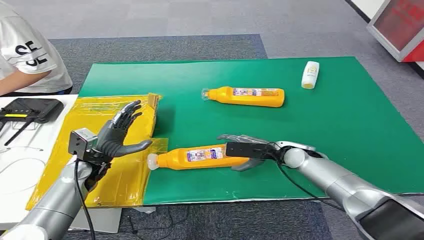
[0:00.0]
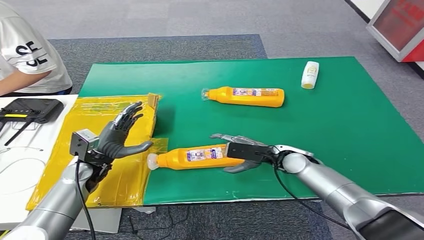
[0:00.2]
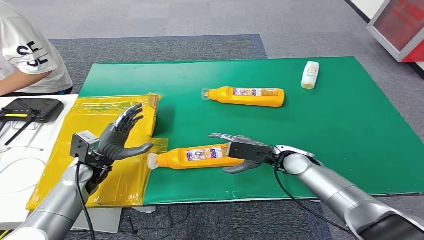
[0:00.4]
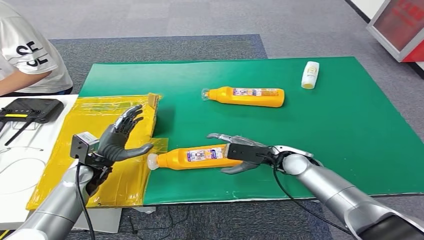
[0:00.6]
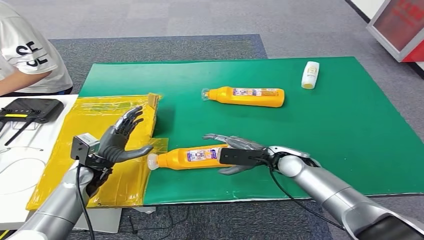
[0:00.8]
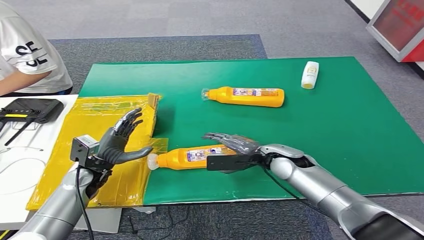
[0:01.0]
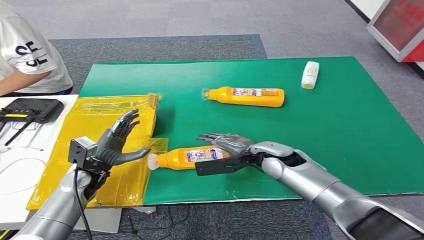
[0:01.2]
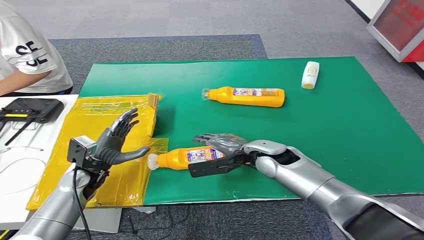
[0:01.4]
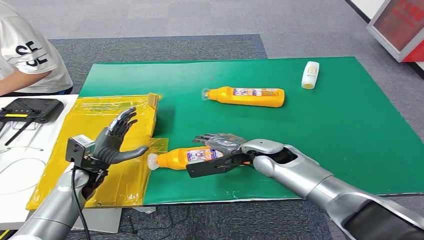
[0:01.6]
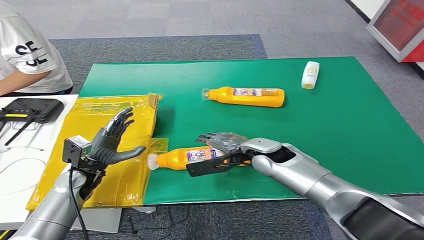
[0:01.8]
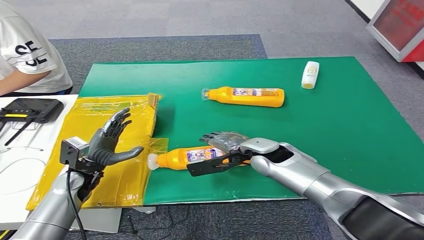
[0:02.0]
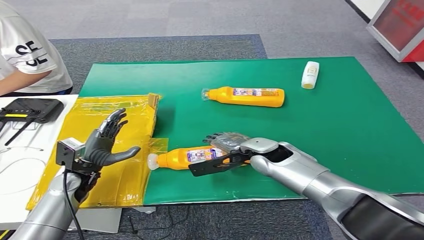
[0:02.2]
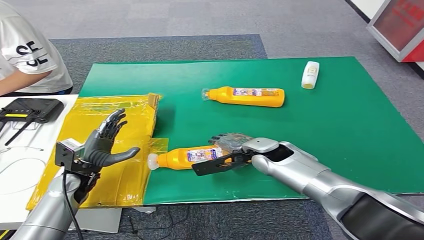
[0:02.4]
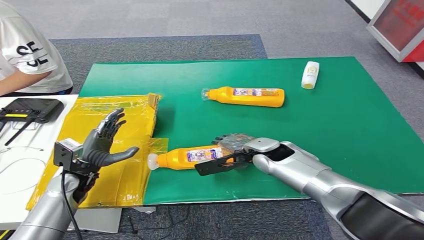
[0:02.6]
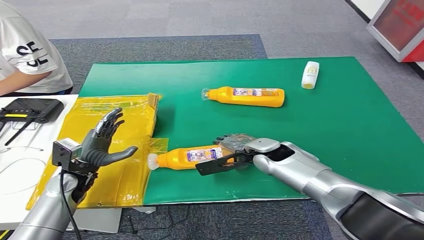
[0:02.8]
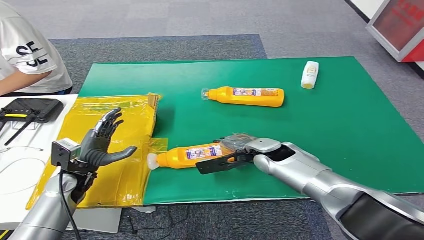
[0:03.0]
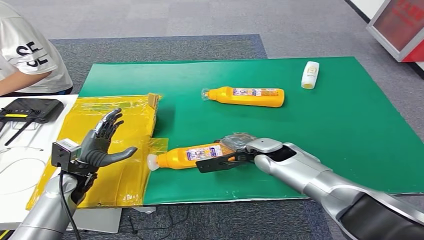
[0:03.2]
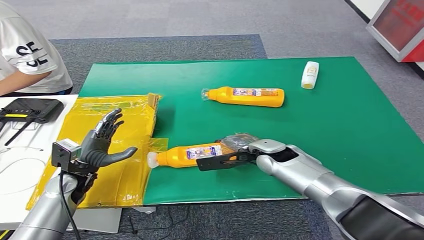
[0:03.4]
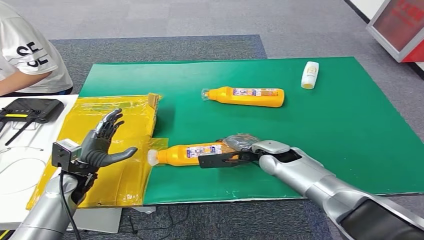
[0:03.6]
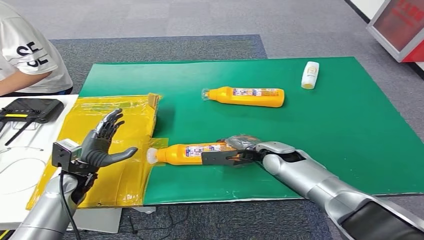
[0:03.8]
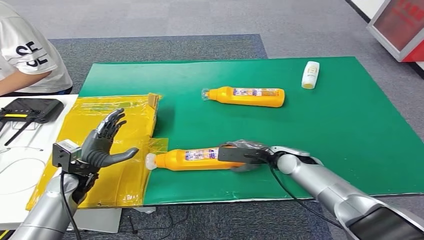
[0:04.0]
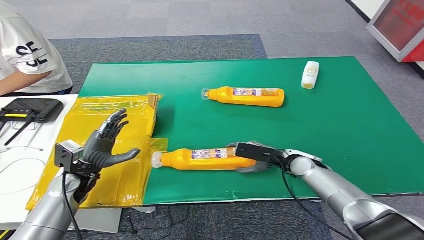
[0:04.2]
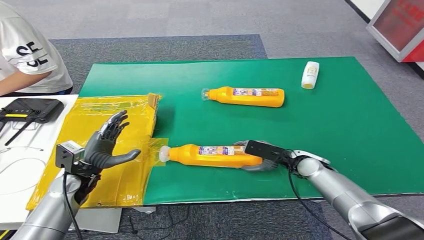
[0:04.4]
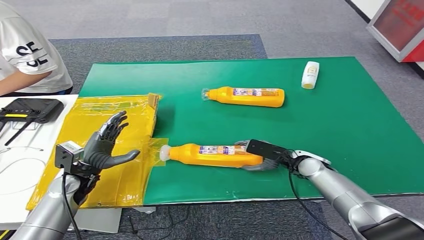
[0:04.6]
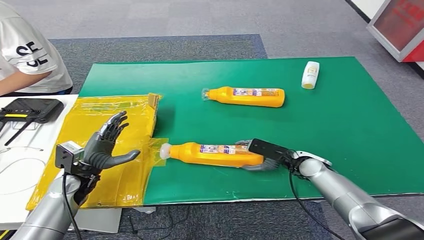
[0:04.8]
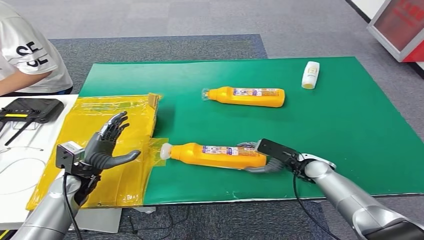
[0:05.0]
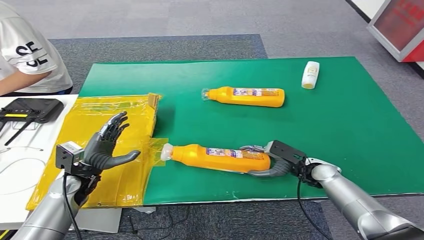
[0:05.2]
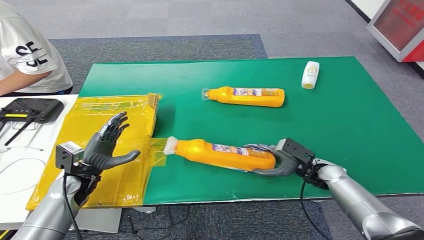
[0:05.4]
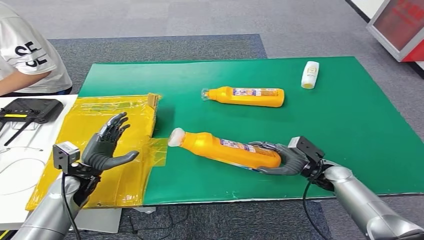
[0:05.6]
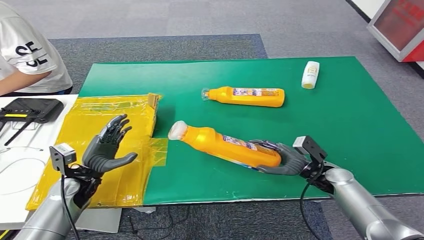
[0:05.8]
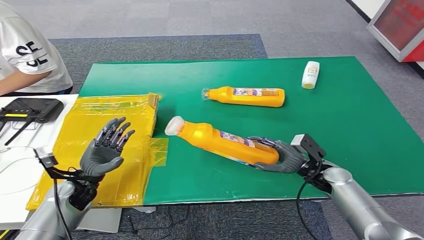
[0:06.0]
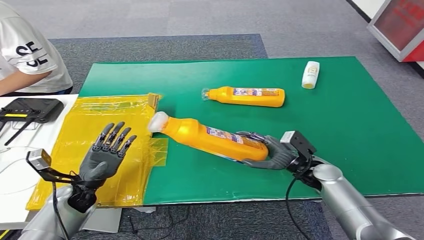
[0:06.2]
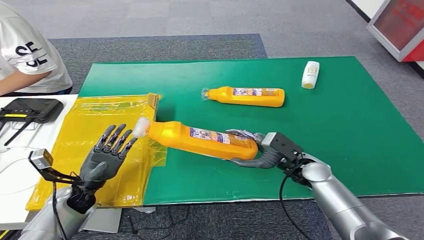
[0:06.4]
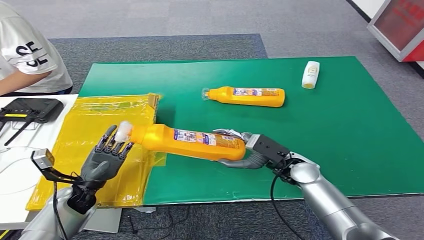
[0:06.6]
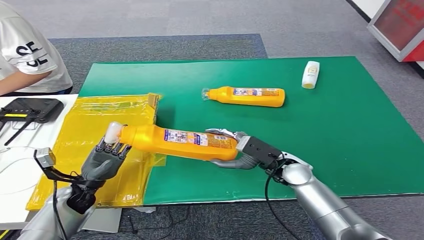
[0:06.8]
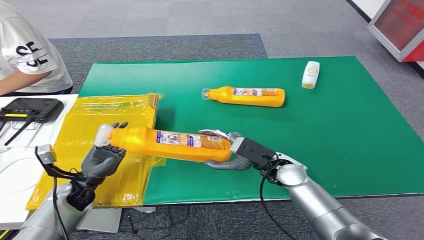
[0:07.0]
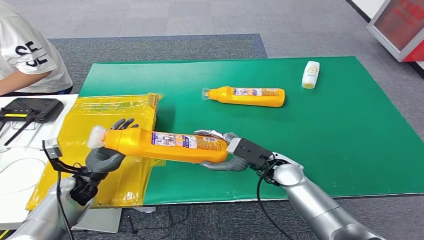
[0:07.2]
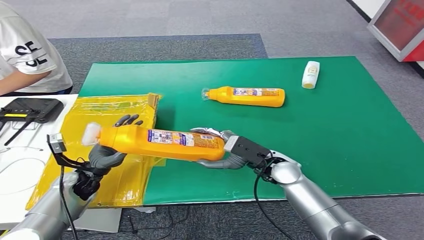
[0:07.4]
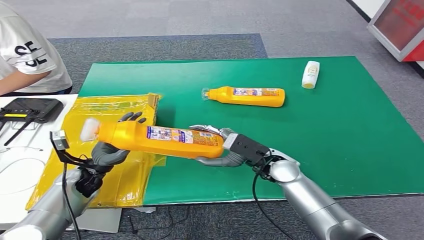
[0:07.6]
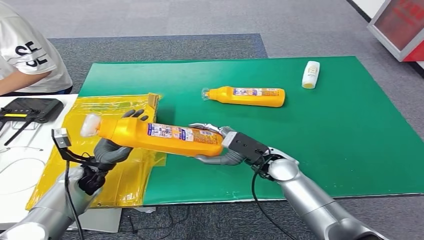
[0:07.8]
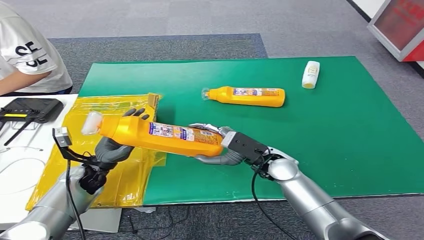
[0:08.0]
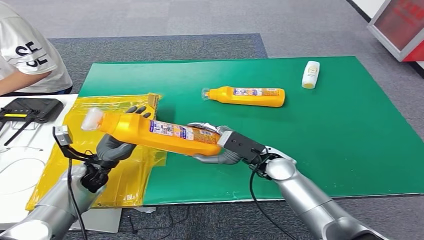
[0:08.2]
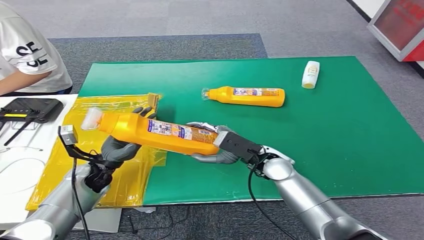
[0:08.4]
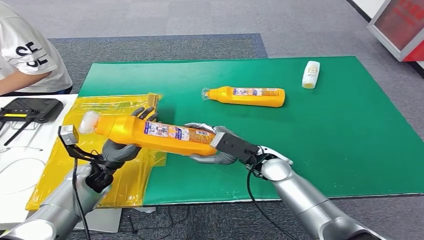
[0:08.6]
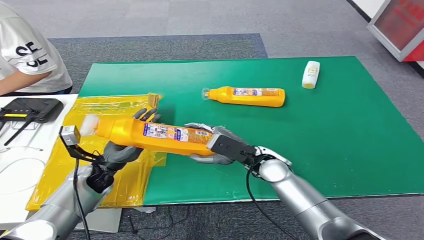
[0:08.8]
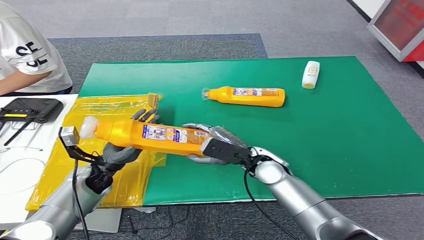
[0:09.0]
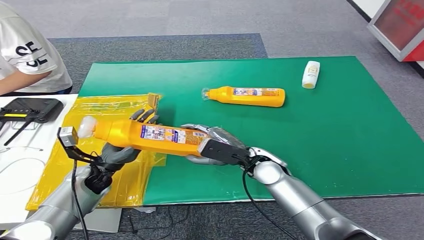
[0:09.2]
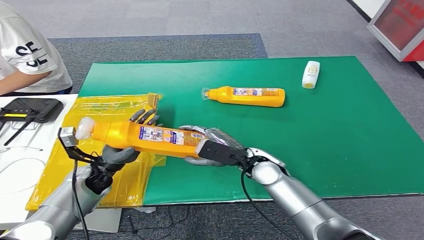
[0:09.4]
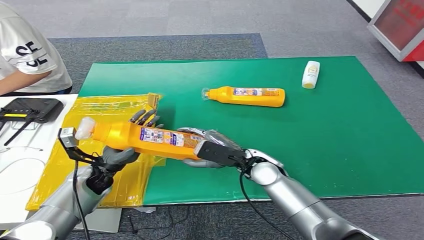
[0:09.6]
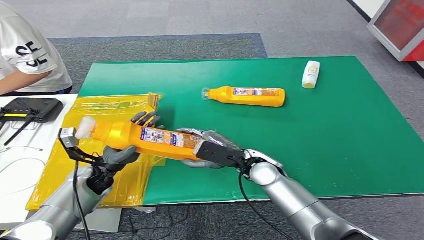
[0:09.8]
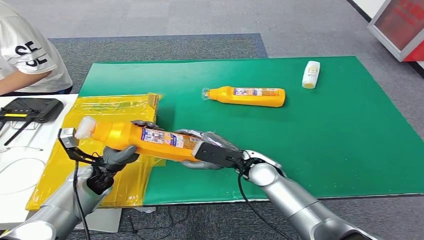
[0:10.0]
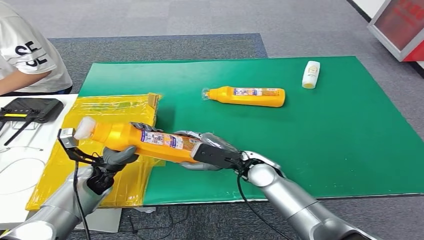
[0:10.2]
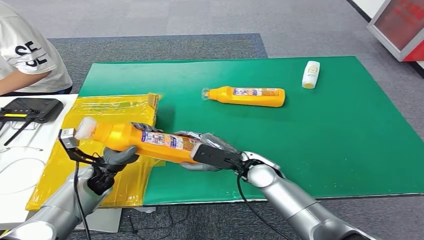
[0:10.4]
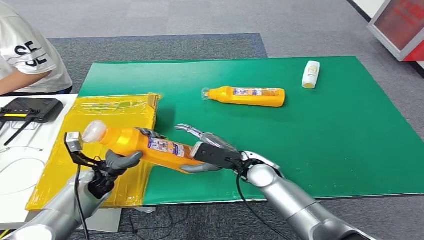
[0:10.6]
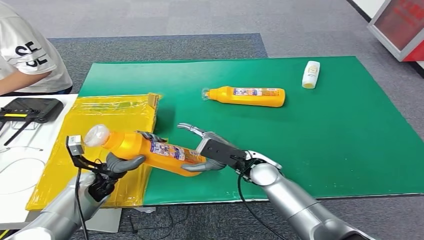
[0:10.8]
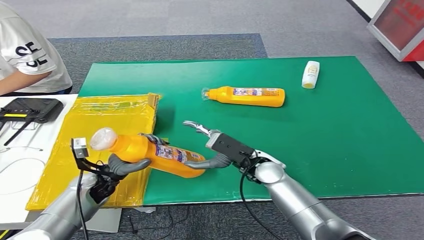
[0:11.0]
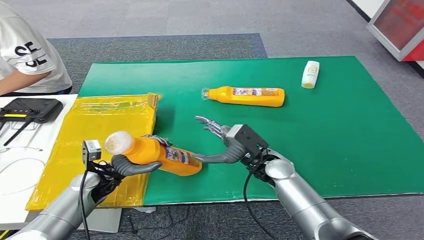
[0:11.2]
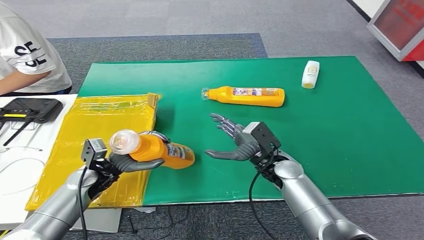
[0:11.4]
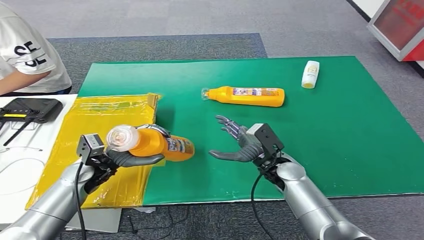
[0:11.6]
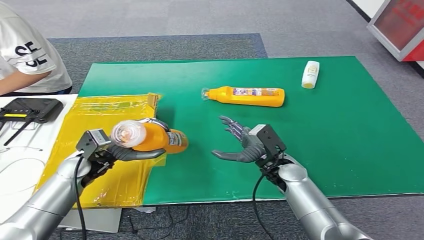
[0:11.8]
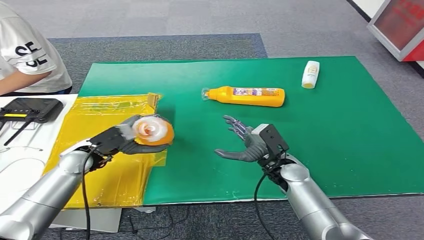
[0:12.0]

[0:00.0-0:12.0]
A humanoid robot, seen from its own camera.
Step, 0:00.0 to 0:05.4: Pick up the bottle from the table.
0:01.6 to 0:03.0: The hands make only small movements.
0:03.0 to 0:04.4: The right hand heads to the right and downward, covering about 15 cm.
0:04.4 to 0:06.0: The right hand shifts by some 5 cm.
0:06.0 to 0:07.6: The right hand moves to the left and upward, roughly 15 cm.
0:07.6 to 0:10.4: The hands stay close to where they were, moving slightly.
0:10.4 to 0:12.0: The left hand moves upward, roughly 10 cm. The right hand moves to the right, some 5 cm.

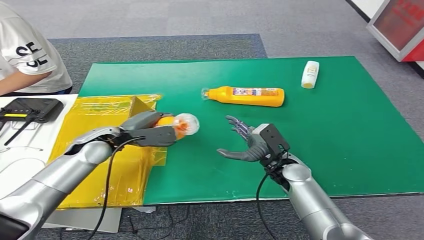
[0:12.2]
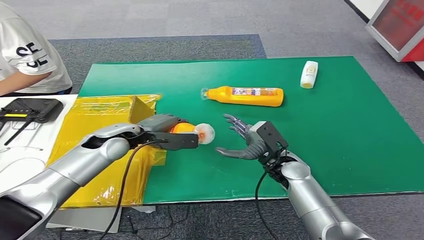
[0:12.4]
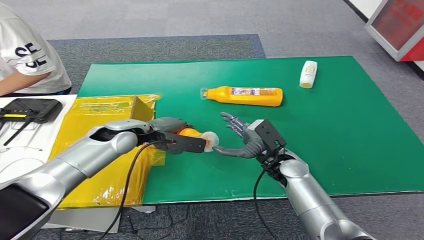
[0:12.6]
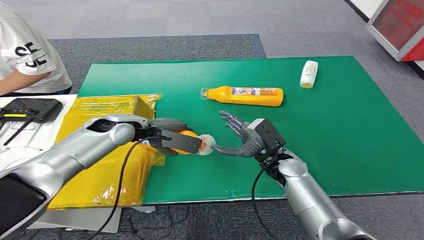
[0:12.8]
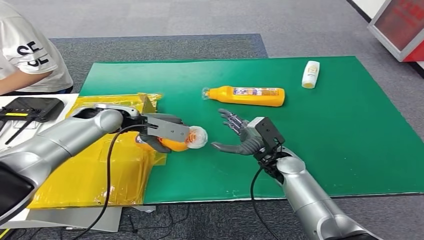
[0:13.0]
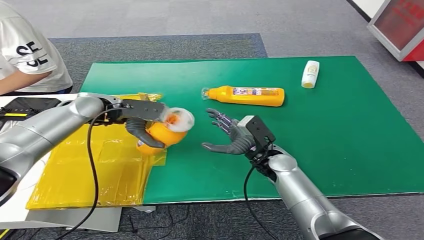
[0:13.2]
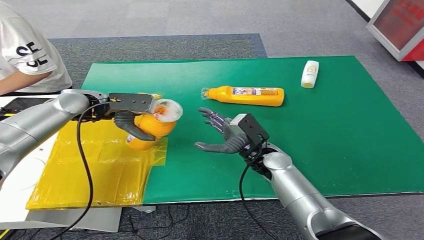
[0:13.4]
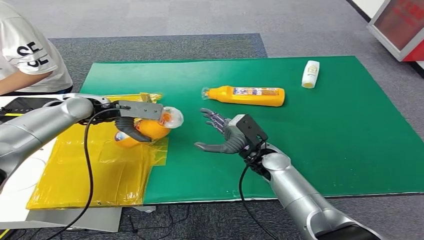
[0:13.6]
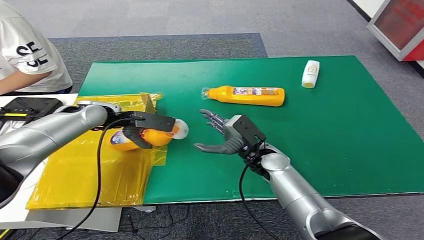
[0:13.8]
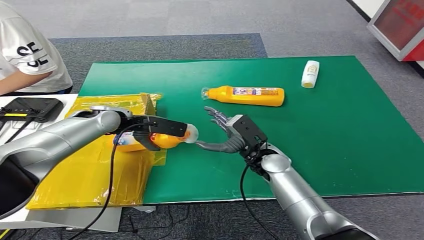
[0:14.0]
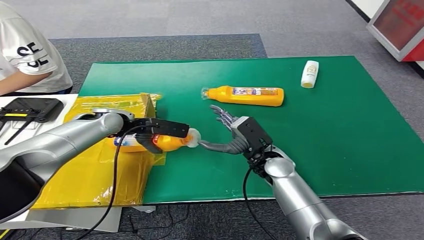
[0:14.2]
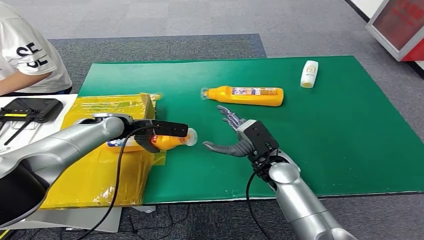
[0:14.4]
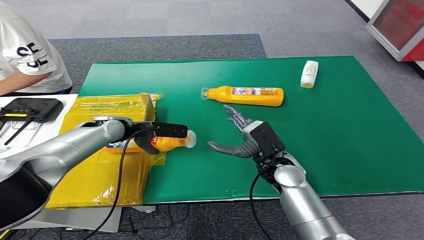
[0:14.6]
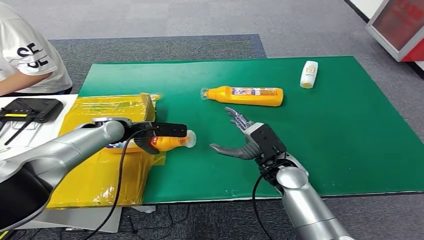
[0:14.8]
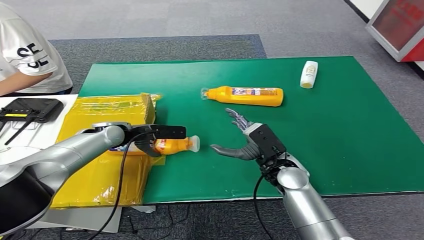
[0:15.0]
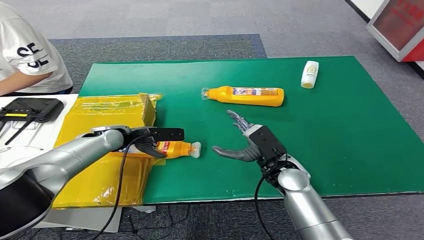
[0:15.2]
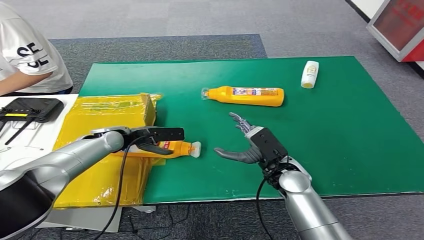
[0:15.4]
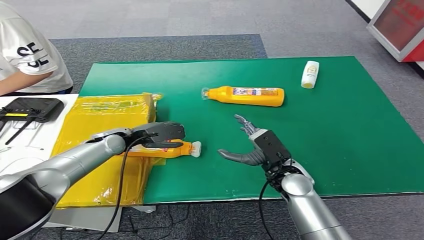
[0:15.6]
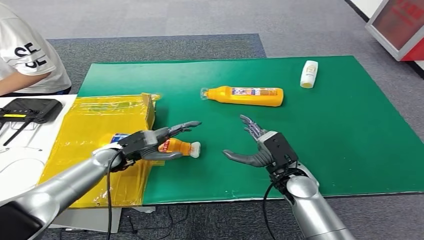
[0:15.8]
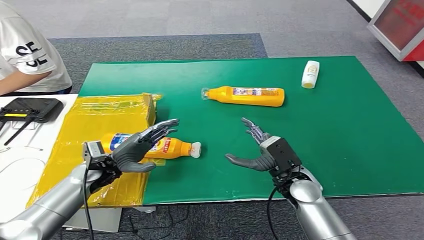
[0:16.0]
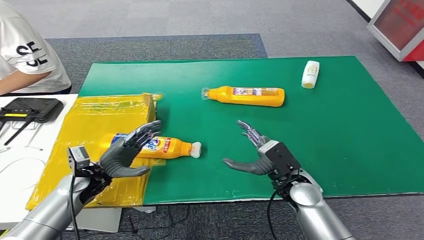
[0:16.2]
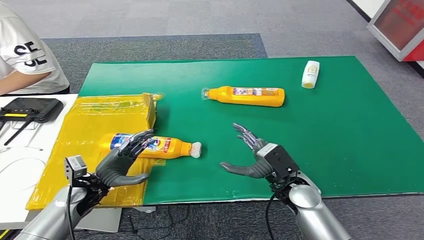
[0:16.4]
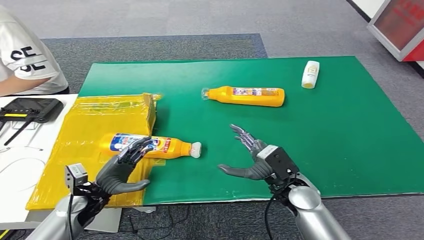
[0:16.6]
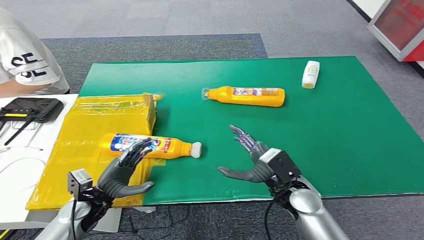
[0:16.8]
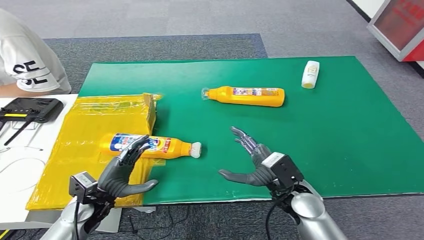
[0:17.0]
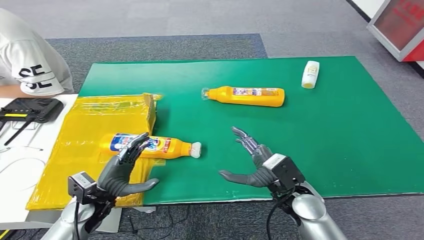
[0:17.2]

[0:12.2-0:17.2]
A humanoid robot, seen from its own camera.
Step, 0:12.2 to 0:17.2: Turn the bottle to the front side.
0:13.8 to 0:15.6: The right hand goes some 5 cm backward; the left hand shifts approximately 10 cm downward.
